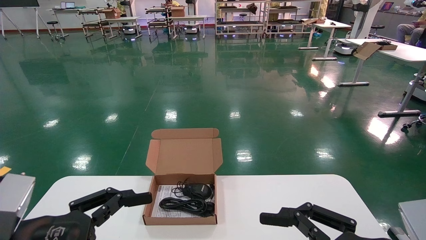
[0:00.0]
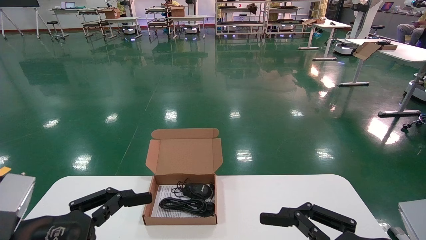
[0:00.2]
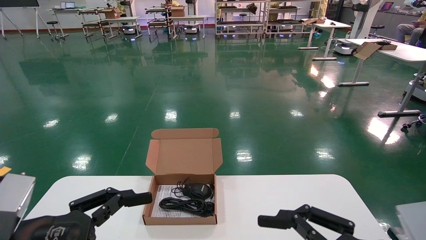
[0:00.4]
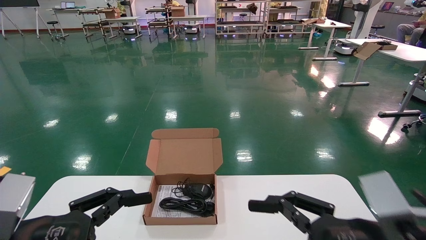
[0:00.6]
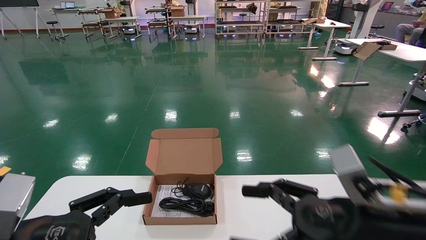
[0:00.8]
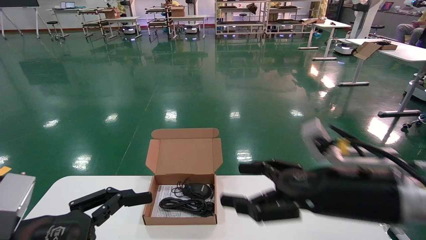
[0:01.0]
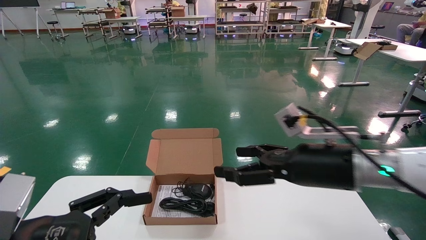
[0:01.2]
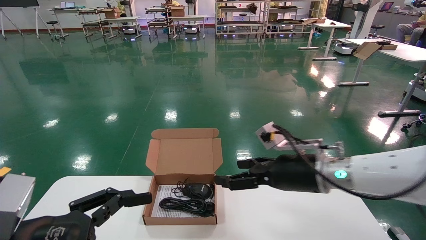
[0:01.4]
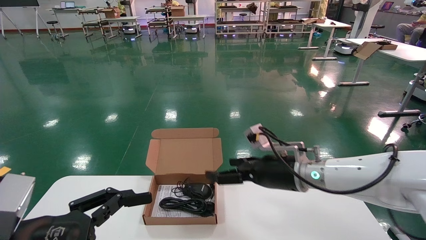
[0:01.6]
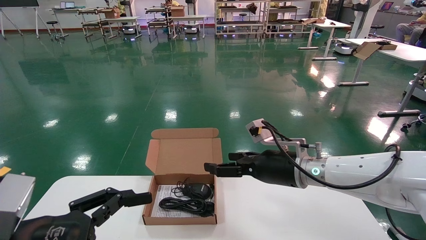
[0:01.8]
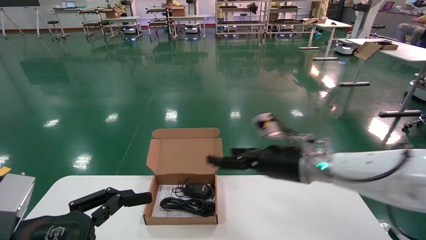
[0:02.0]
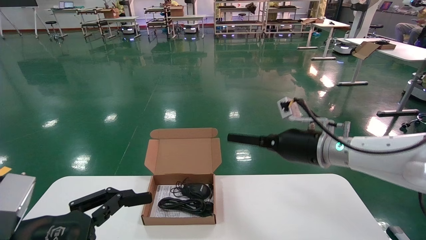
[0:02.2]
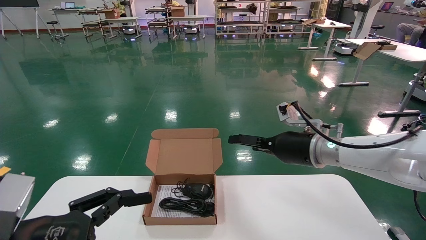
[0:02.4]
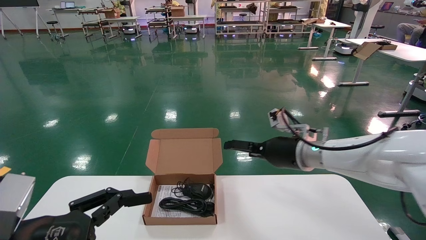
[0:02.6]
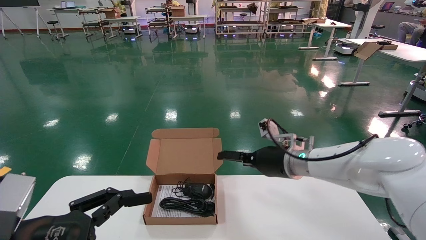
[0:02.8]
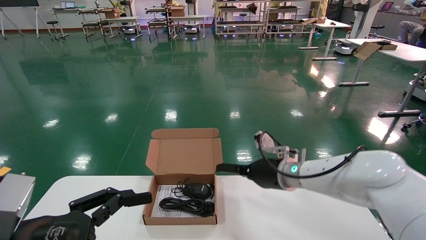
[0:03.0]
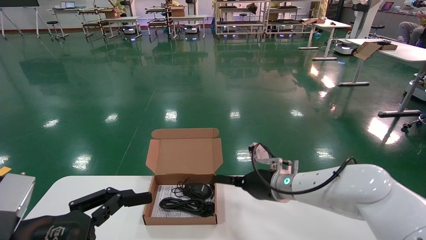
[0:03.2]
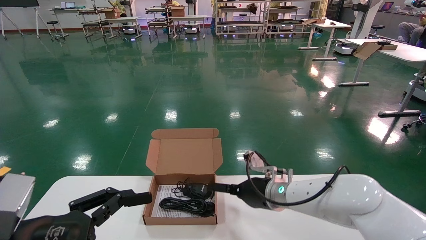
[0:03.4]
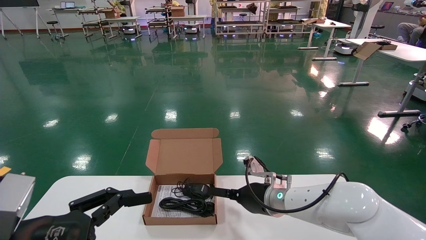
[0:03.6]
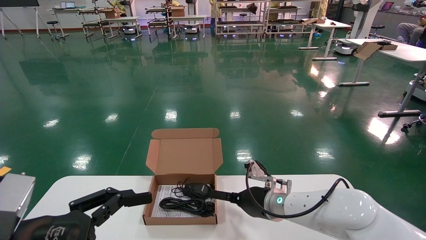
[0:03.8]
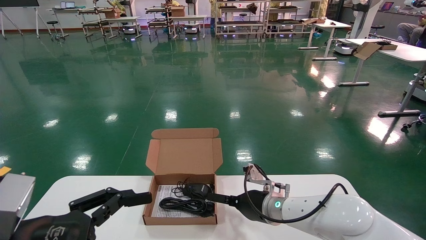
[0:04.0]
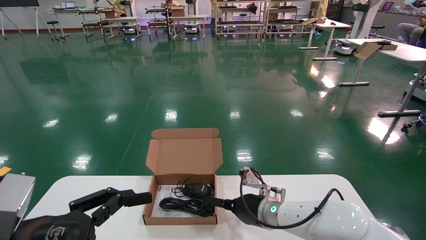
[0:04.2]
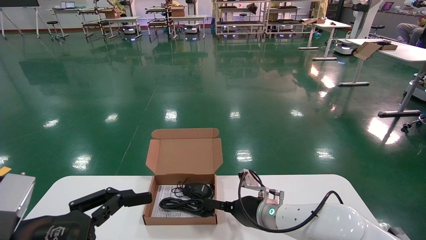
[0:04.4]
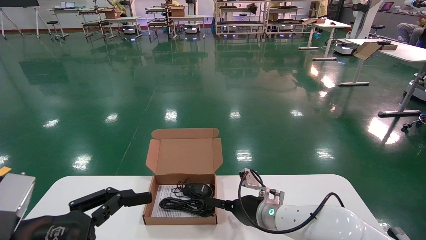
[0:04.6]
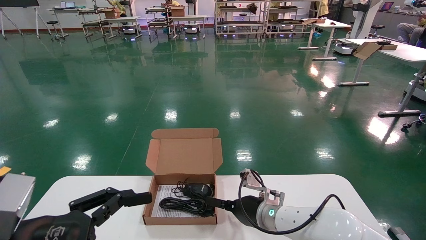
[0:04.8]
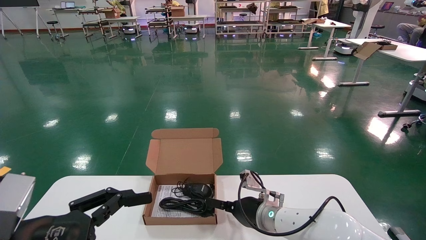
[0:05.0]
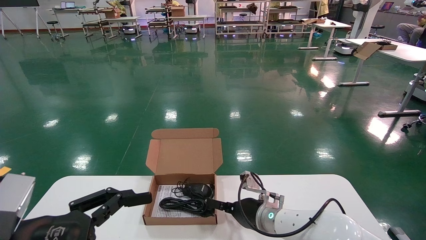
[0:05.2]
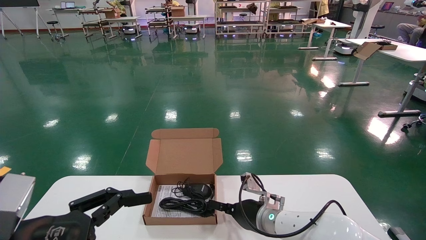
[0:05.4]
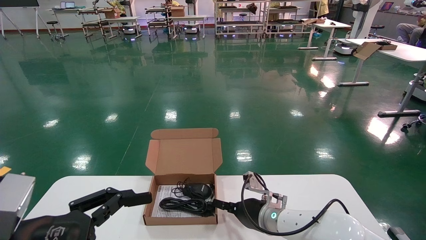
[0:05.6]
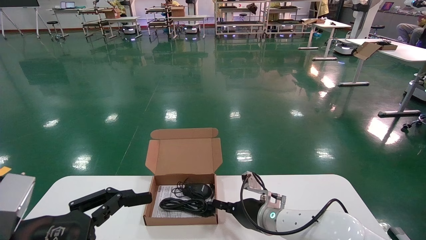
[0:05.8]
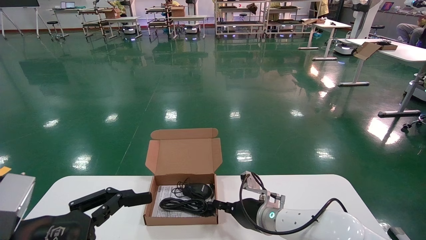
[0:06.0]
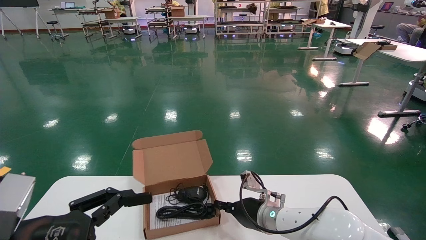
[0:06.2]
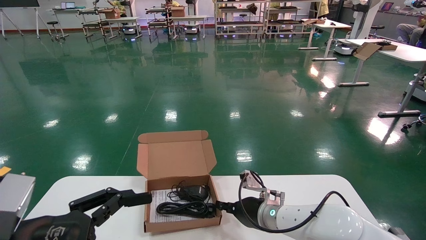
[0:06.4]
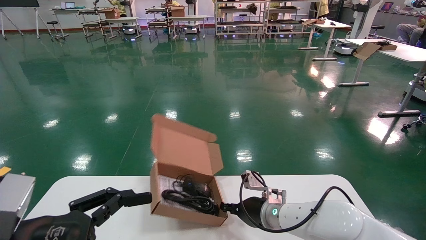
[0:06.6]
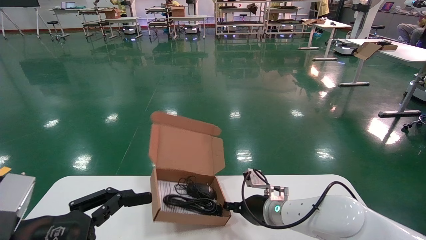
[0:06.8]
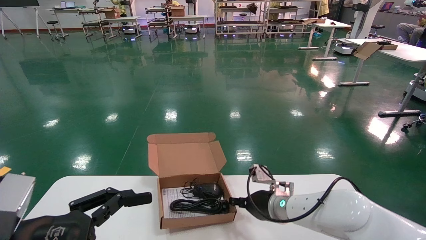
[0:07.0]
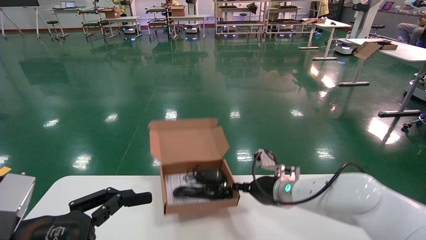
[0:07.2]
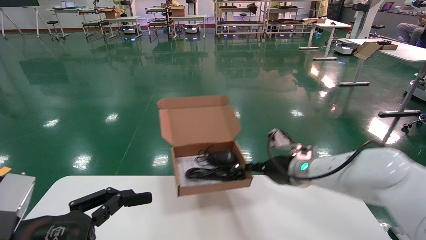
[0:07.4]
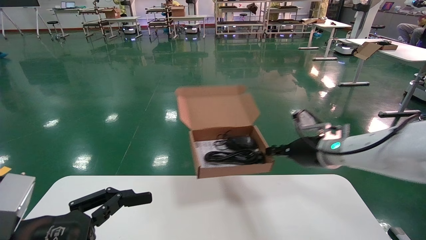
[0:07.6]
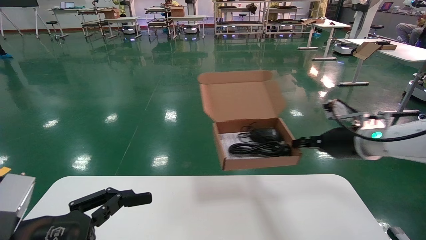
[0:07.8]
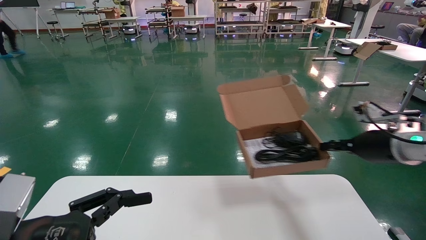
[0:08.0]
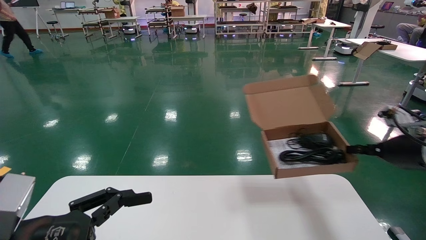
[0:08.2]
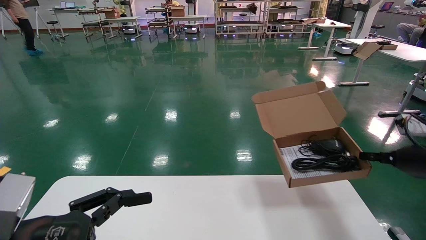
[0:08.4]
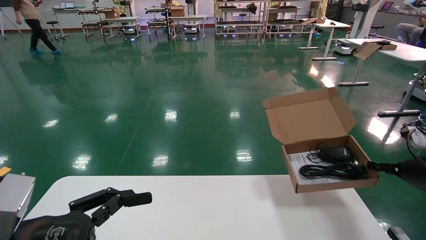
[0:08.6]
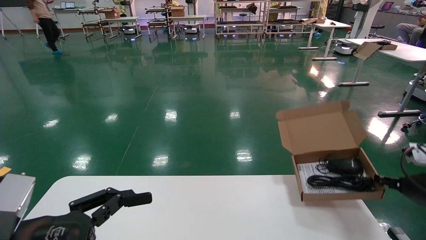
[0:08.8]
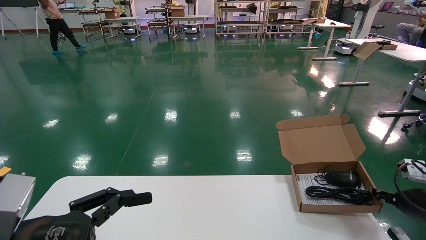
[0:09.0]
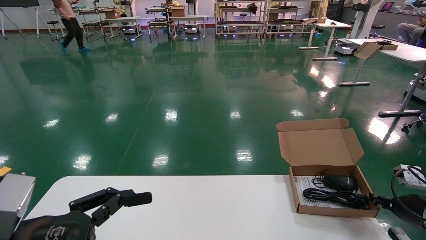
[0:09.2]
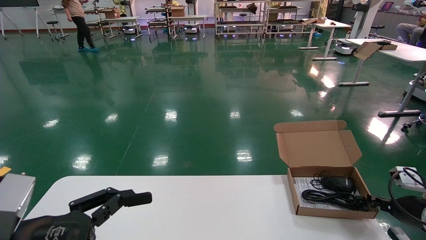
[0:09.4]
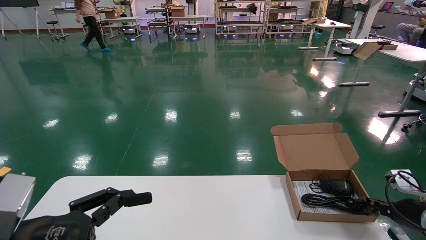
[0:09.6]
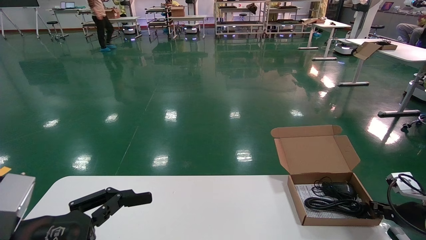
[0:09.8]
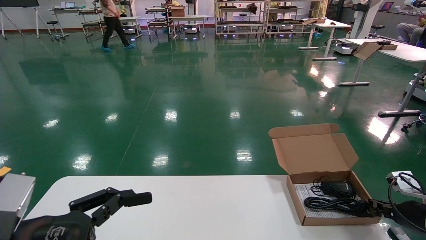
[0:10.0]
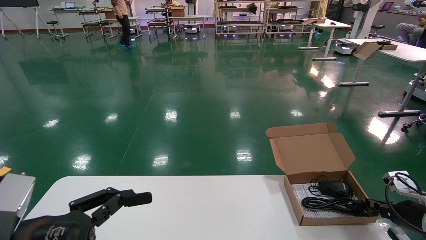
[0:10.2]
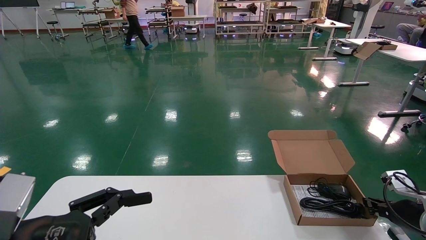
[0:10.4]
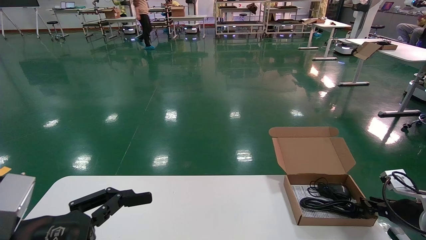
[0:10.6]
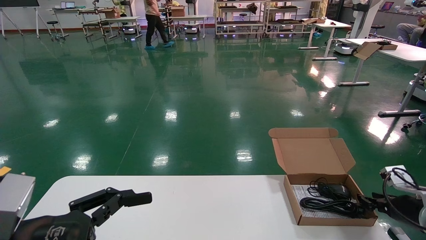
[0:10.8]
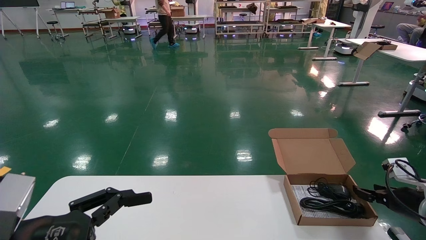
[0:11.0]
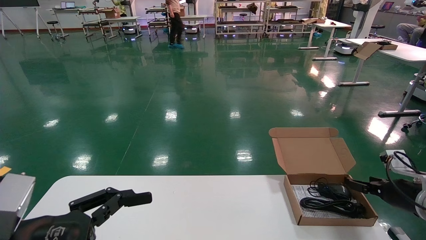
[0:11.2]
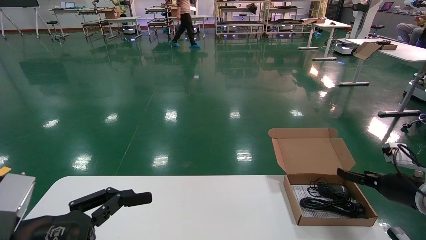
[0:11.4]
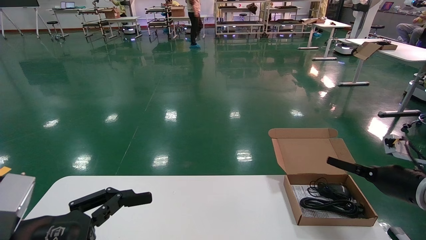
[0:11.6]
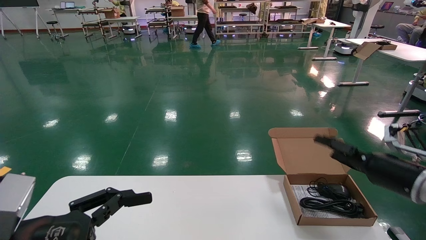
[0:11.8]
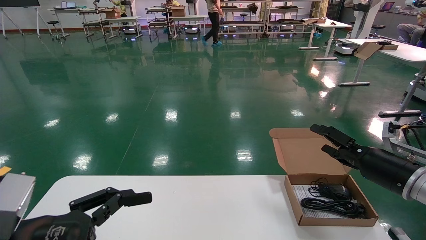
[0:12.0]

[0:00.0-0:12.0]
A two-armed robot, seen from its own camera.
Task of the whole recording: move the position of the storage box with accessories on the table.
Step, 0:01.0 to 0:06.4: Grab and pick up the open mouse box from the accessory packaging area.
Step, 0:06.6 to 0:10.6: Place the open mouse box onto the operation table.
0:00.0 to 0:01.6: The right gripper travels forward and to the left by about 25 cm.
0:01.6 to 0:03.0: The right gripper shifts roughly 5 cm forward.
0:03.0 to 0:04.4: The right gripper shifts some 10 cm downward.
0:04.4 to 0:06.0: The right gripper closes up.
0:06.0 to 0:07.6: The right gripper goes roughly 20 cm upward and to the right.
0:07.6 to 0:09.0: The right gripper travels to the right and downward by roughly 25 cm.
0:09.0 to 0:10.4: The grippers make only small movements.
0:10.4 to 0:12.0: The right gripper is displaced upward and to the left by some 10 cm, and opens up.

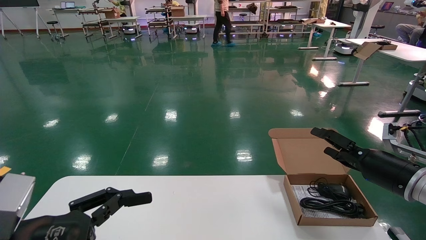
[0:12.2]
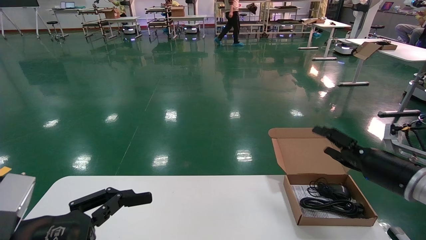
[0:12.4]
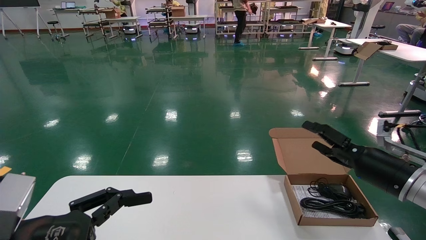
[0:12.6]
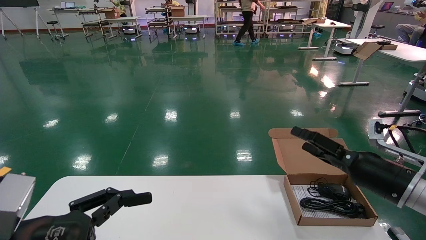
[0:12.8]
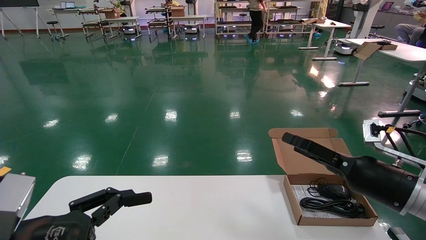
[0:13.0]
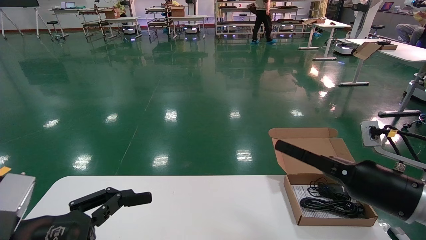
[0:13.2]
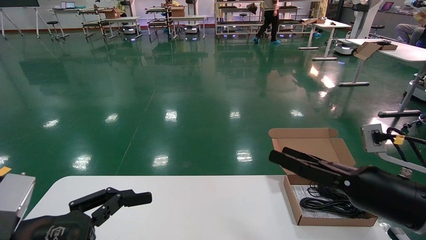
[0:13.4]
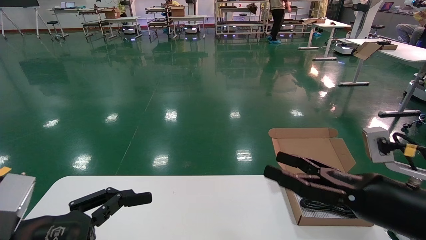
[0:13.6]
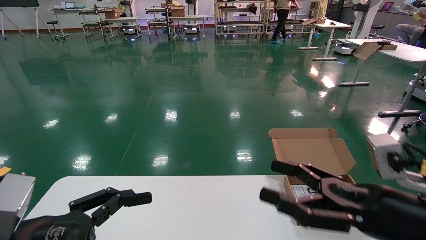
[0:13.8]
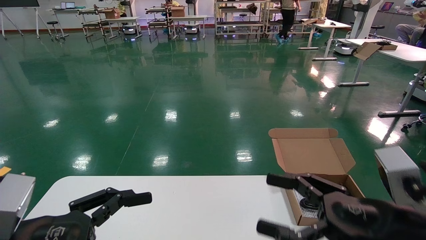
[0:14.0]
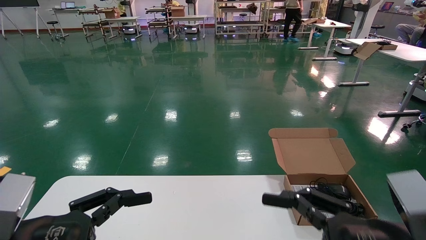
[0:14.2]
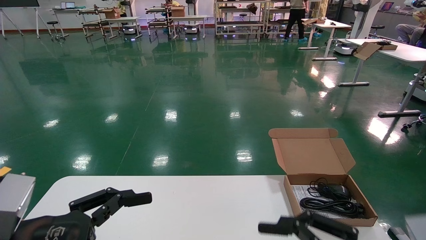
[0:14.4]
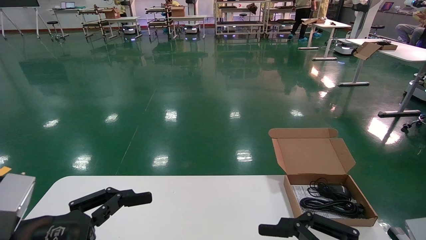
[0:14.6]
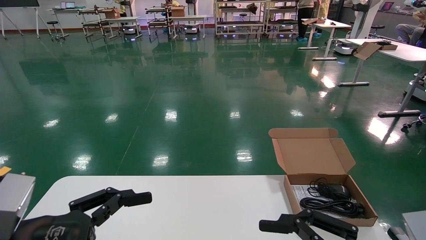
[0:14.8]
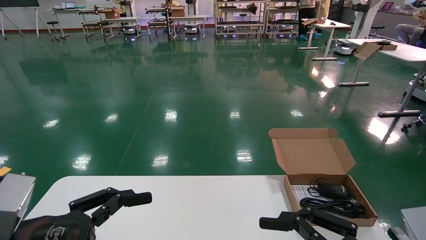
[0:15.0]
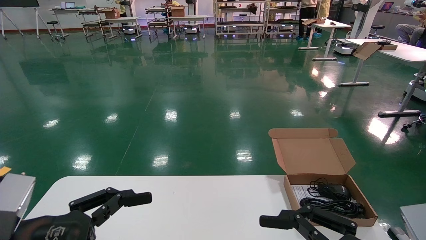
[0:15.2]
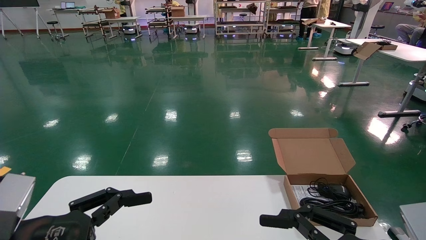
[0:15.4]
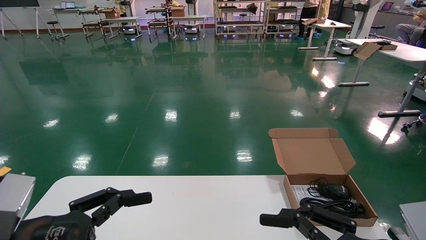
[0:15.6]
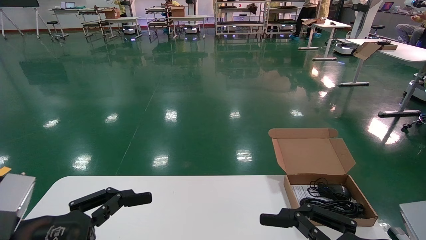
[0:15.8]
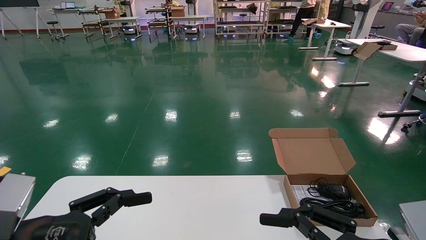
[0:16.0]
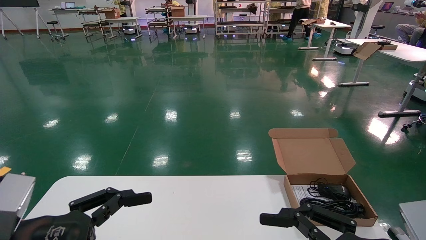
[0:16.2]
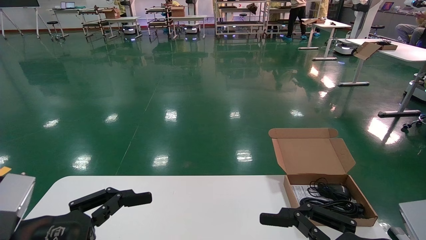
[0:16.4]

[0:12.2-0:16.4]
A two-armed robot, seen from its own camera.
Task of the whole recording: move the position of the storage box with accessories on the table.
0:12.2 to 0:13.6: The right gripper goes roughly 15 cm backward and to the left.
0:13.6 to 0:15.0: The right gripper travels backward by about 10 cm.
0:15.0 to 0:16.4: Neither gripper changes place.
